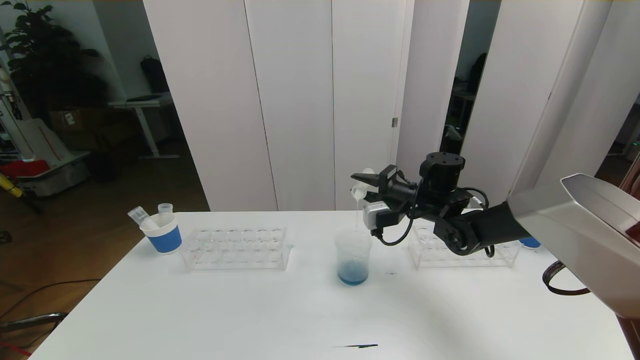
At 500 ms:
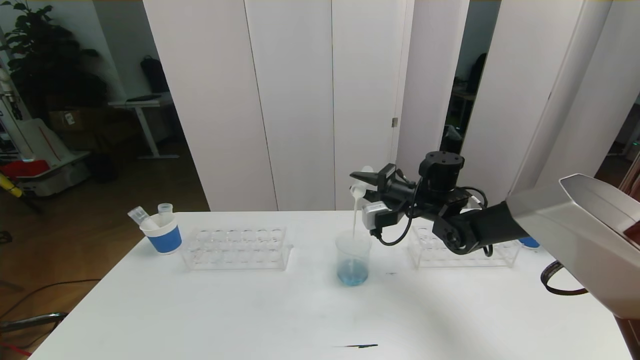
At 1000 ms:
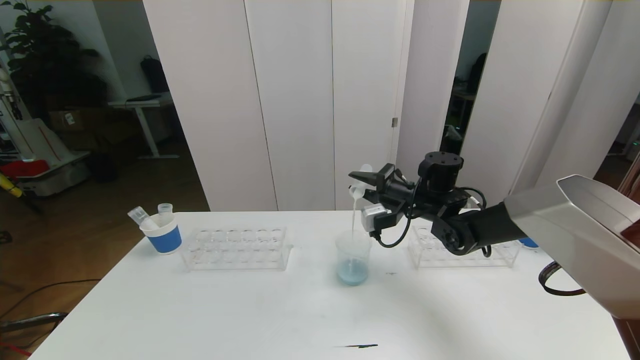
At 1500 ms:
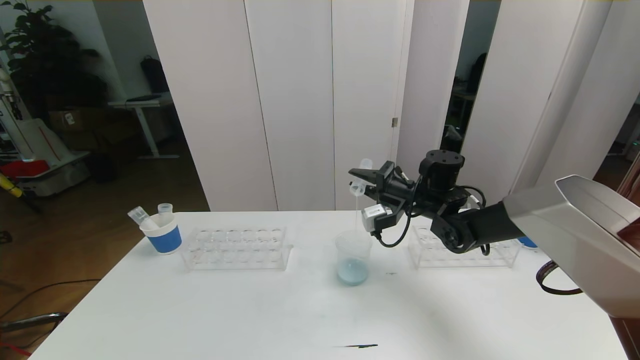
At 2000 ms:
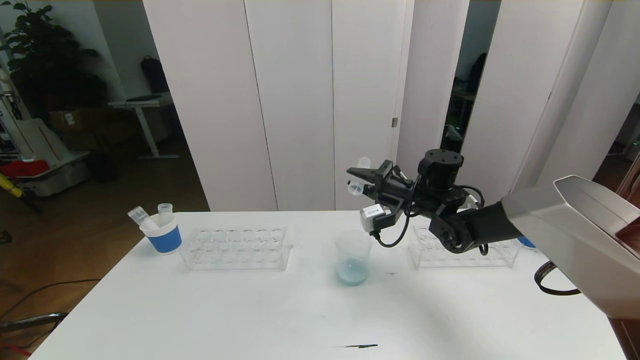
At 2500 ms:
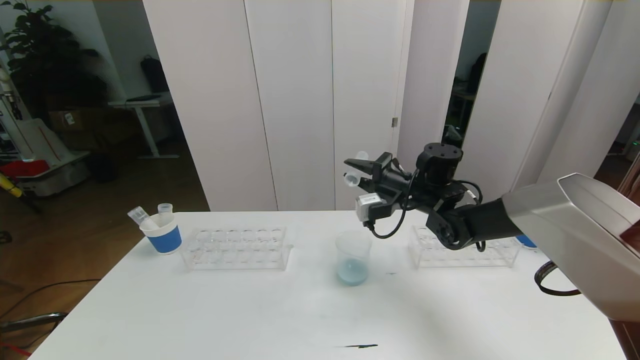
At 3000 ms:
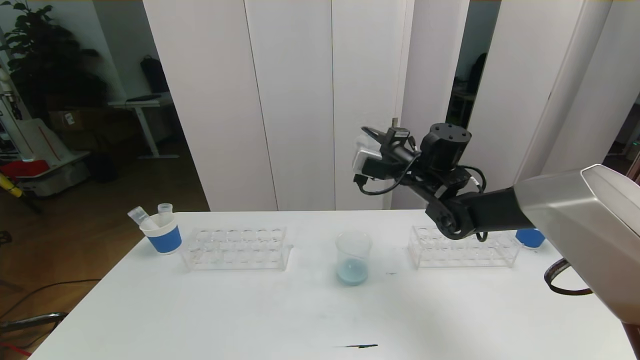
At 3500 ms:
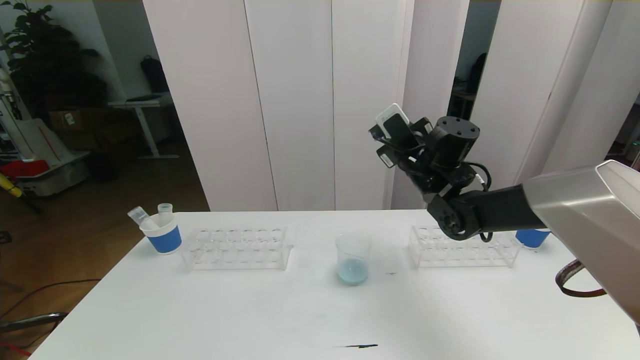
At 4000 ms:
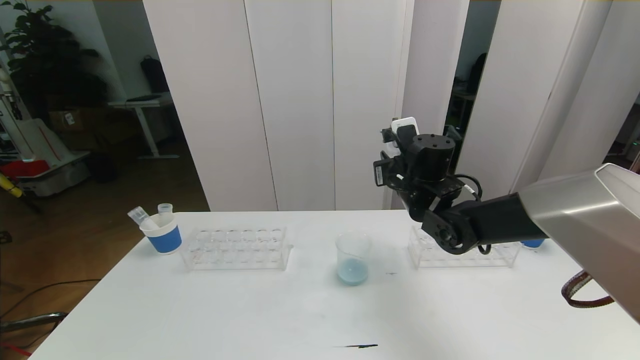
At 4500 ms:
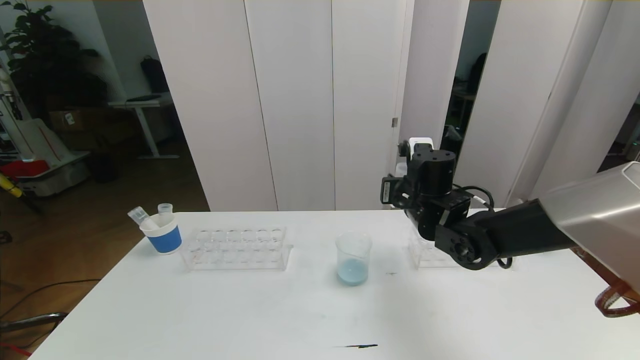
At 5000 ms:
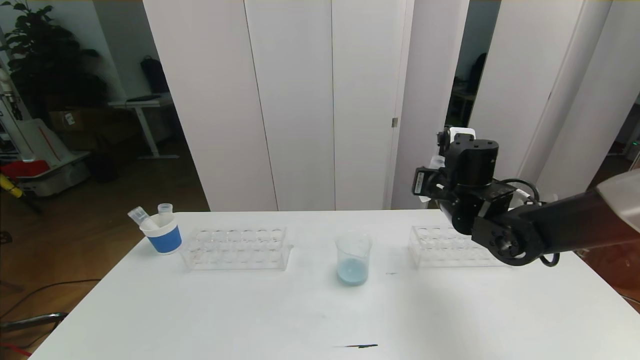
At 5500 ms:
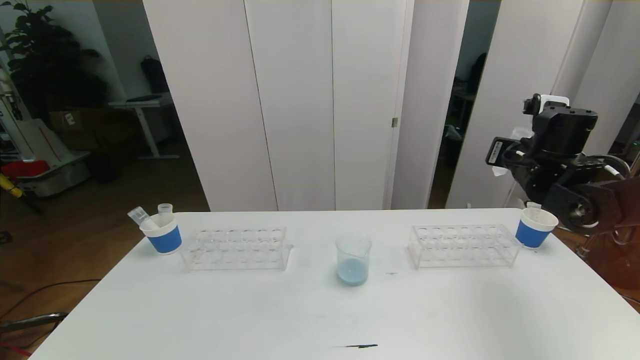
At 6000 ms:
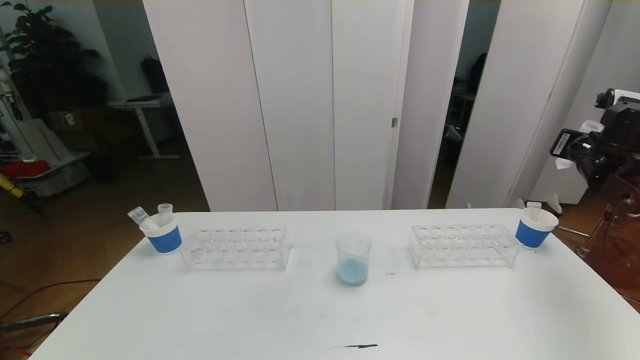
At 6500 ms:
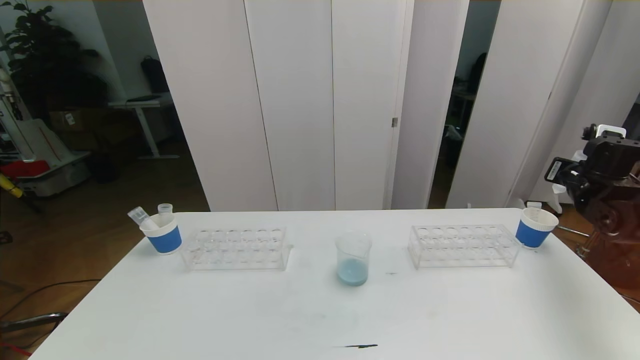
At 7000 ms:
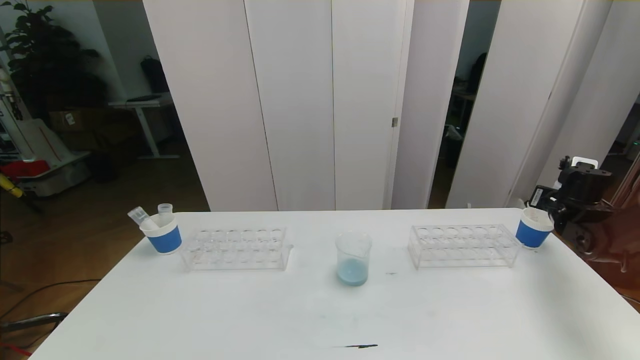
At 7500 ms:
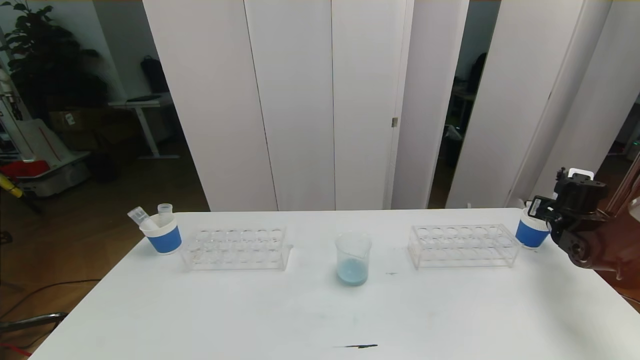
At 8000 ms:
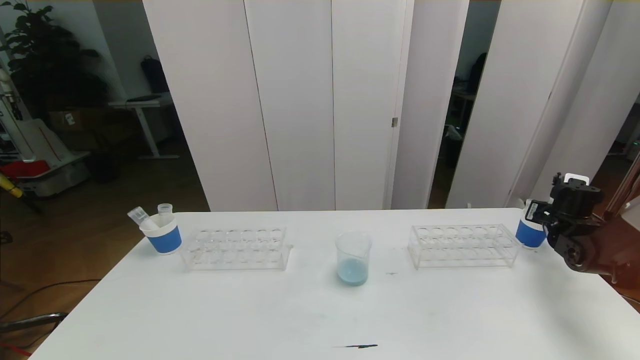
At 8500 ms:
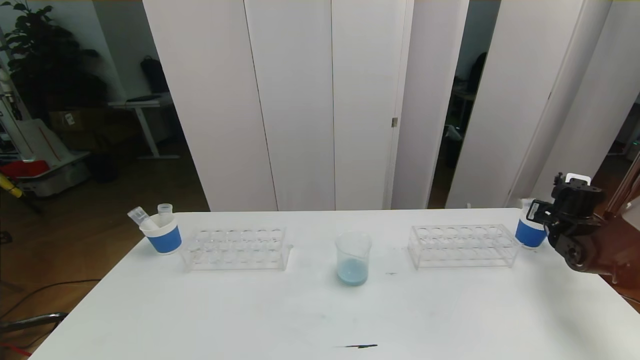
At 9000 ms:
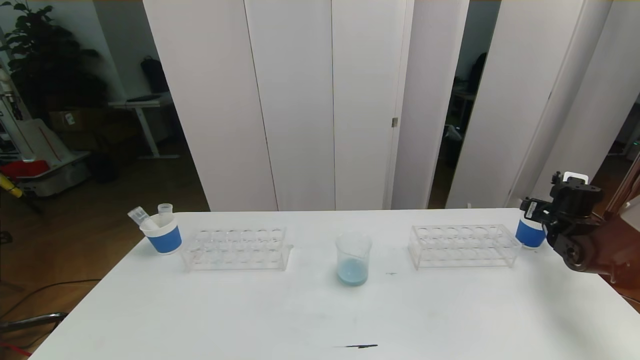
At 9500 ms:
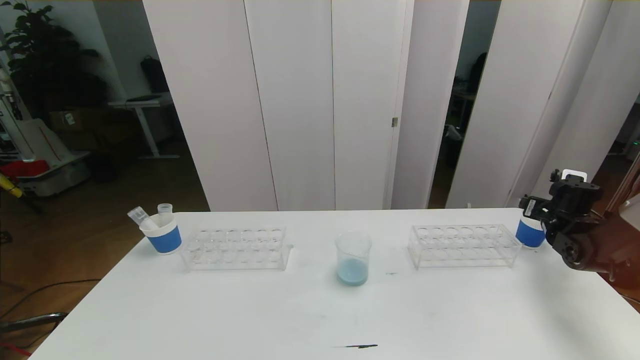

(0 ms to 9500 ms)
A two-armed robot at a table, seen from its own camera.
Task of the whole recording: pick up the test tube with red pigment the test tube with blue pigment and the test tube with white pigment by grippers and pour them into the beaker.
0 ms - 2000 ms: The grippers stay close to where they were, moving slightly.
2000 ms - 4000 ms: The right gripper moves about 5 cm.
4000 ms - 5500 ms: The right gripper goes some 15 cm to the right.
5500 ms - 7500 ms: The right gripper moves to the right and downward, about 20 cm.
7500 ms - 9500 ms: The right gripper opens its fingers.

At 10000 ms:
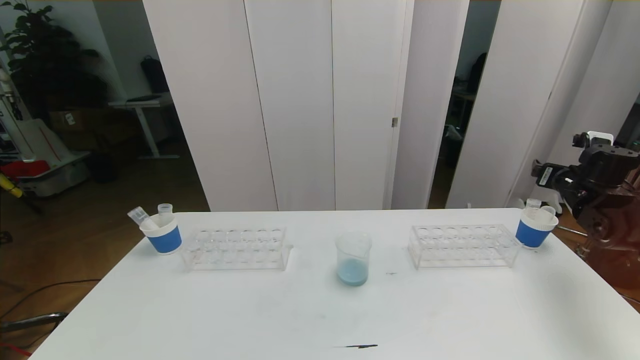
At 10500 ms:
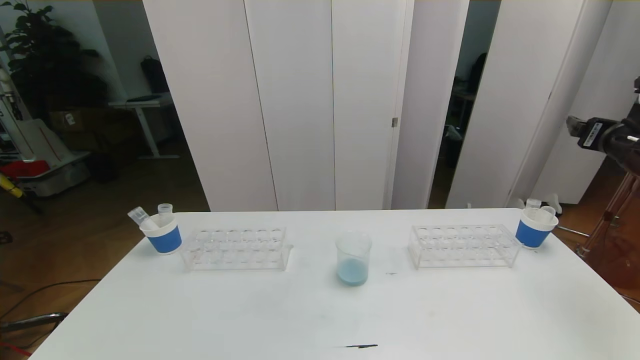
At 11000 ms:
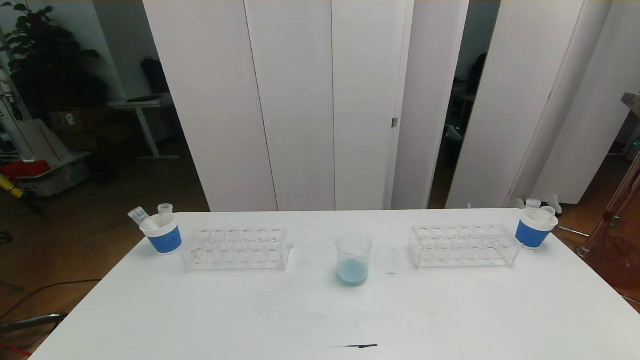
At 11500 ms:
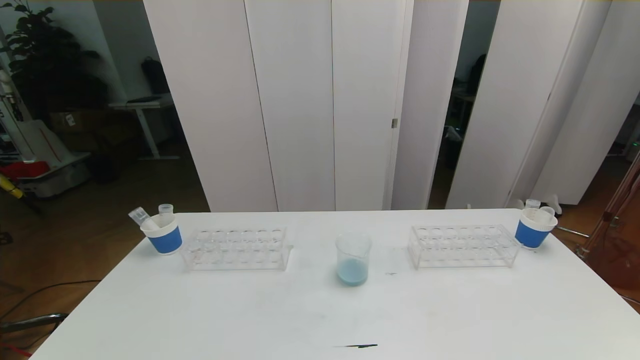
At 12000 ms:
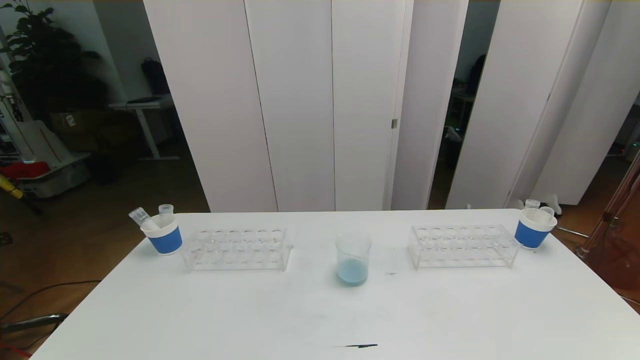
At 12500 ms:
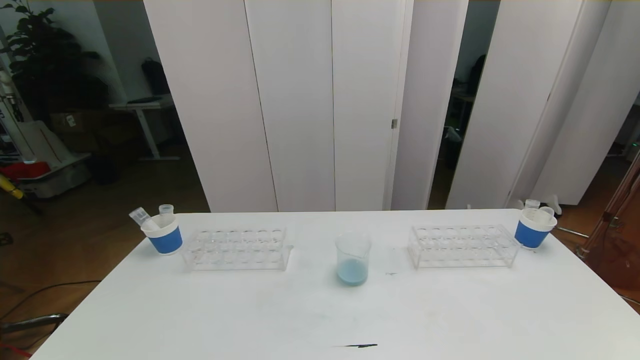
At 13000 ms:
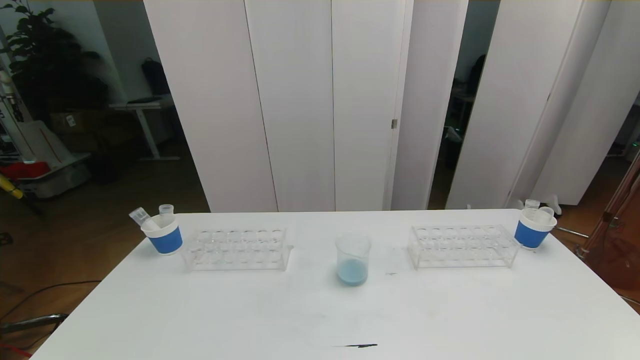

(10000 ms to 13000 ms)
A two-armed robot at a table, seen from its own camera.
Task of the whole recording: pick up the test tube with red pigment the test tube with blue pigment and the test tube with white pigment by grippers and pour them into the beaker.
10000 ms - 11500 ms: The right gripper moves backward, approximately 35 cm.
